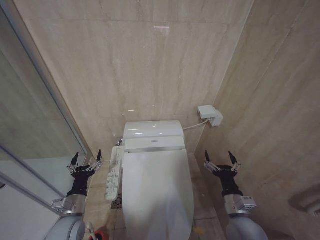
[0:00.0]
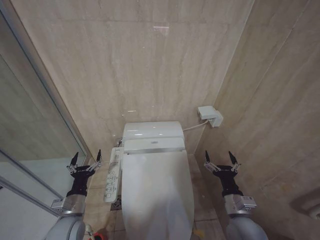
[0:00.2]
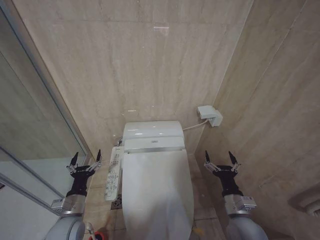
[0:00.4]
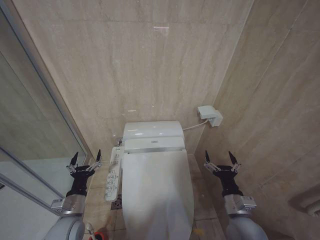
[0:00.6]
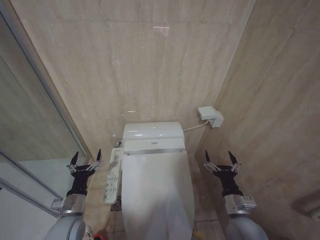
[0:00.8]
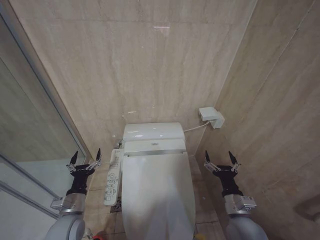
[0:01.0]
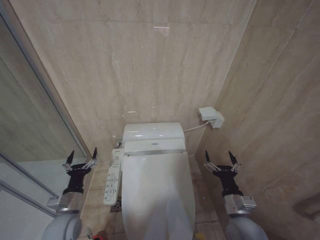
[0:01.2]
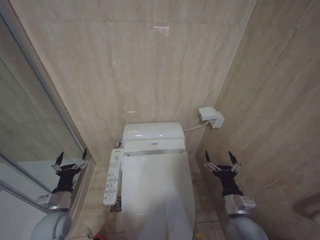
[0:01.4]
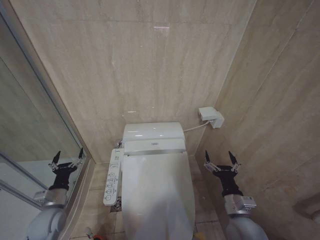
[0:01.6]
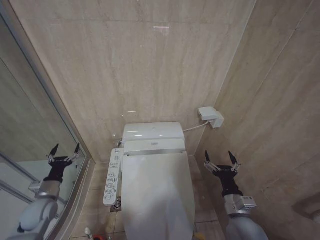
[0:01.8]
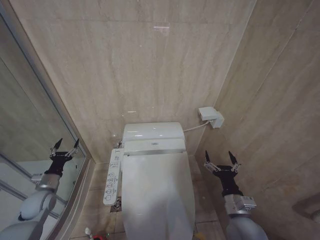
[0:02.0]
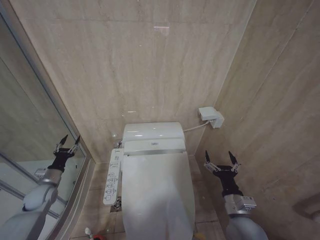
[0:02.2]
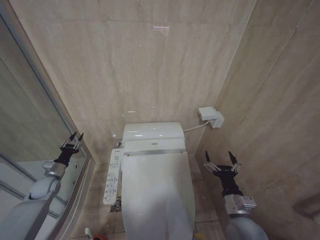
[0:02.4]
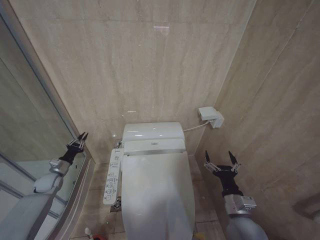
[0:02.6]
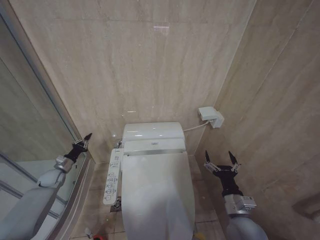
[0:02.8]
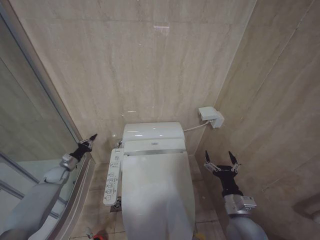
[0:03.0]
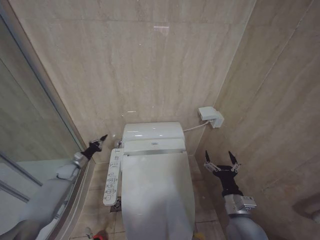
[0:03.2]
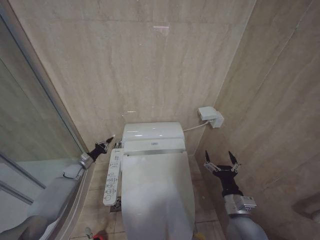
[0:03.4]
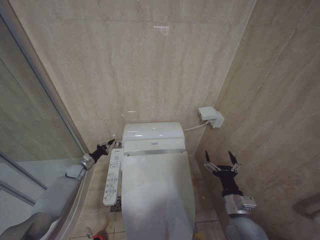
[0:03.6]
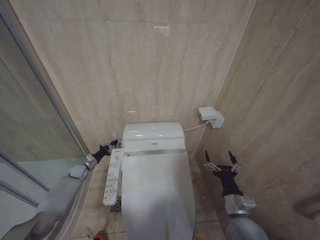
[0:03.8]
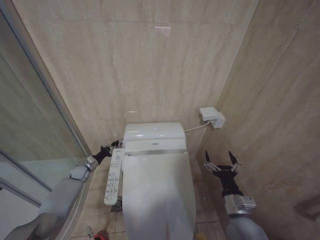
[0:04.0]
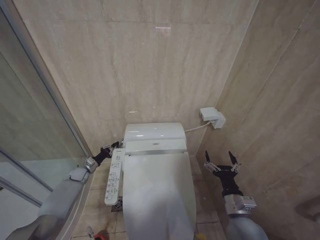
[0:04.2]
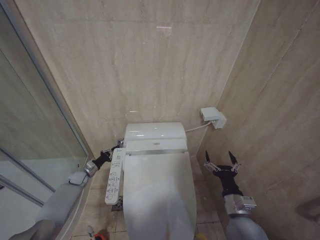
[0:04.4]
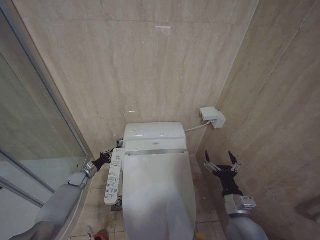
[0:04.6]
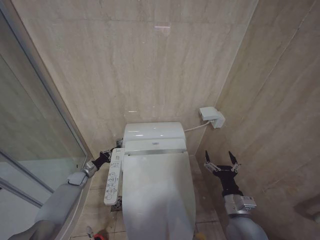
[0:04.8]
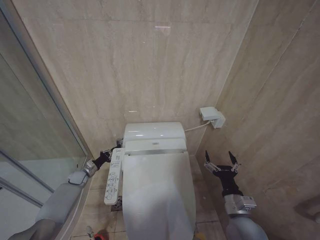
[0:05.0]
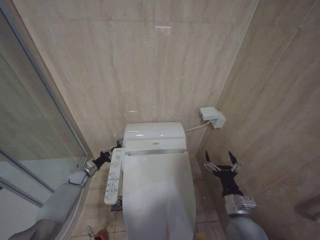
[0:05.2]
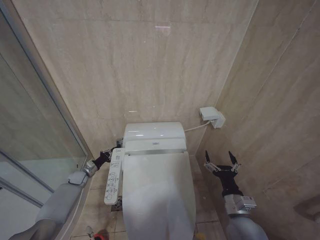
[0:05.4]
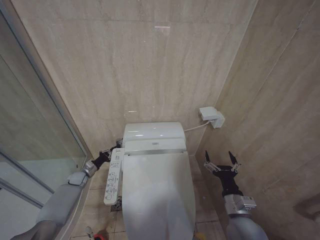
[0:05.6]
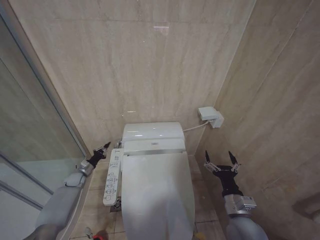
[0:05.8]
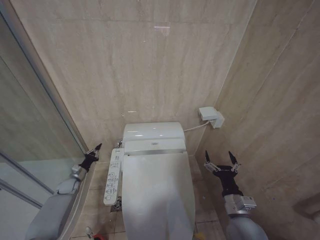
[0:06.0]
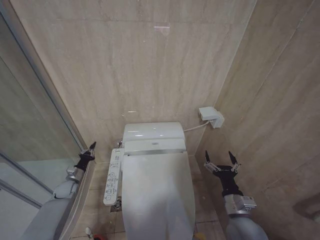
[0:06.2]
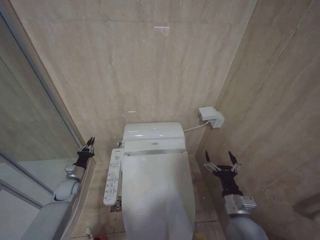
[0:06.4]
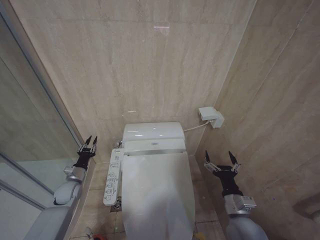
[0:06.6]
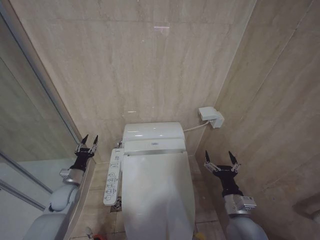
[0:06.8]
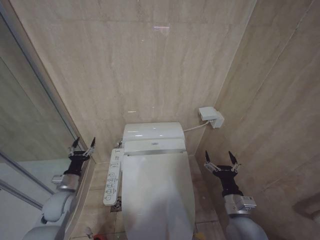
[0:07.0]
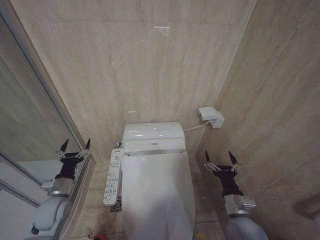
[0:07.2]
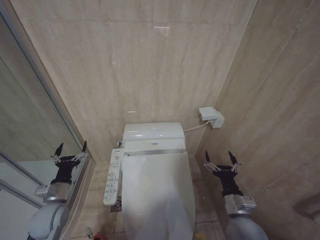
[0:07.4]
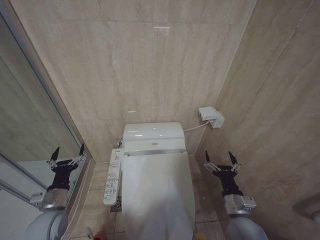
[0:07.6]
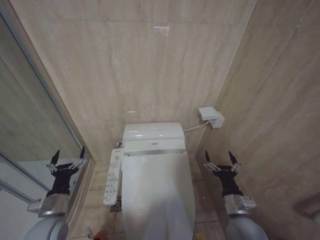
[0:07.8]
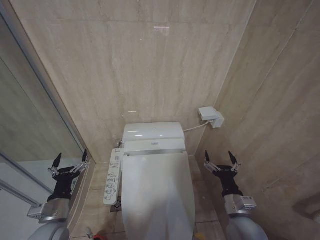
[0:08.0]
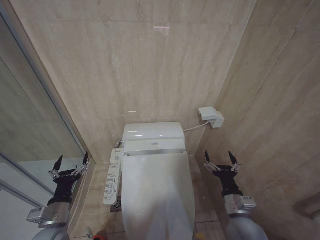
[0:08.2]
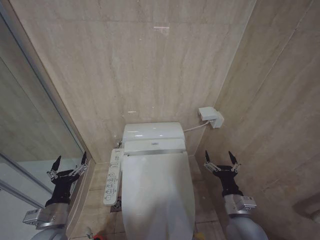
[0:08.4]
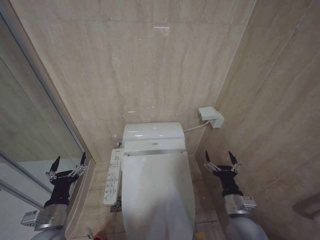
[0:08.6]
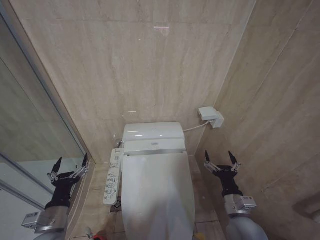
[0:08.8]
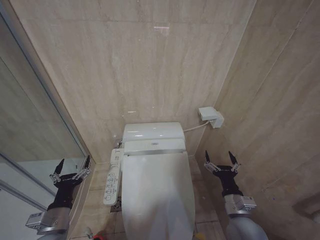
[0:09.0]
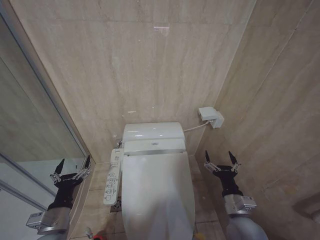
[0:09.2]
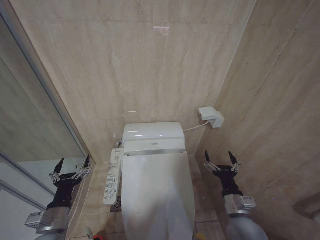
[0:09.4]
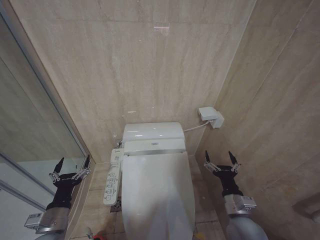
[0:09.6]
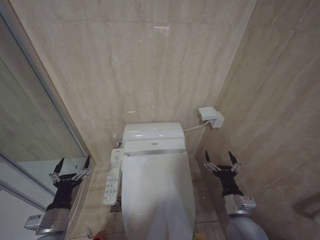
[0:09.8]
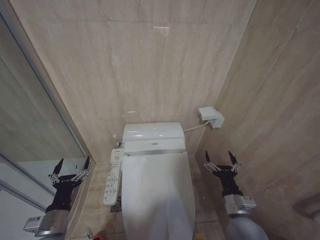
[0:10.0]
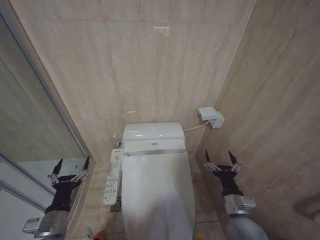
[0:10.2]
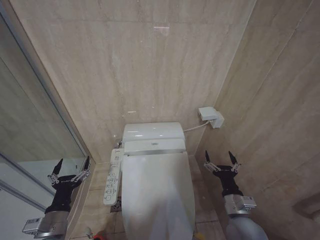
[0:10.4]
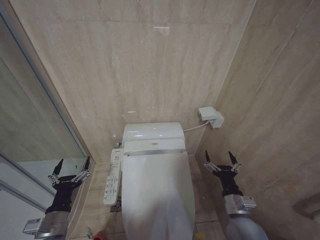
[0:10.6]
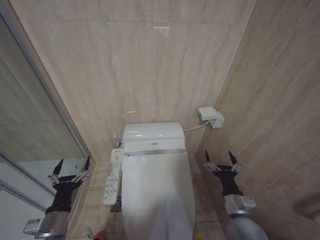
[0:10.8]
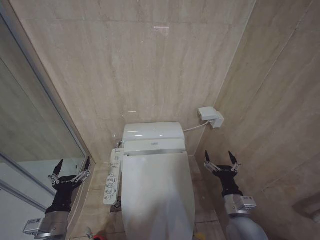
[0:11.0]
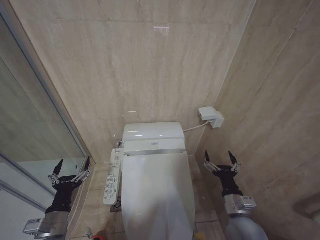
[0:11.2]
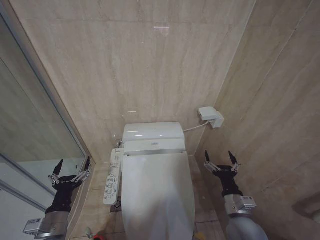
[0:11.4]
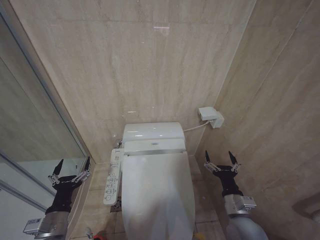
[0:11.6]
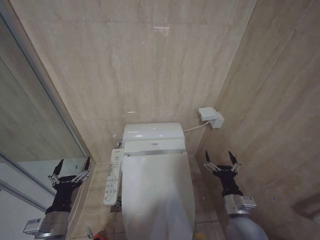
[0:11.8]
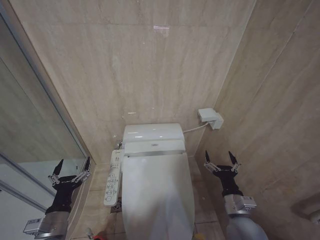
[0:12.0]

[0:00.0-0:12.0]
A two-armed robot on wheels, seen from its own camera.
Task of the whole recording: Open the toilet lid, clean the toilet bowl with a toilet brush, close the toilet lid, and flush.
0:00.0 to 0:01.6: The left gripper goes some 10 cm to the left.
0:01.6 to 0:03.0: The left gripper travels forward and to the left by some 25 cm, and closes up.
0:03.0 to 0:04.4: The left gripper goes approximately 10 cm to the right and downward.
0:04.4 to 0:06.0: There are only small adjustments of the grippers.
0:06.0 to 0:07.6: The left gripper goes approximately 25 cm backward and upward, and opens its fingers.
0:07.6 to 0:09.0: The left gripper heads backward, covering about 5 cm.
0:09.0 to 0:12.0: Both grippers stay about where they are.

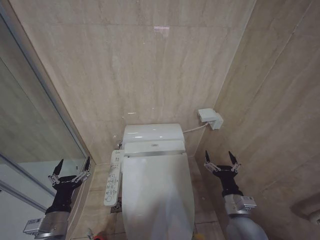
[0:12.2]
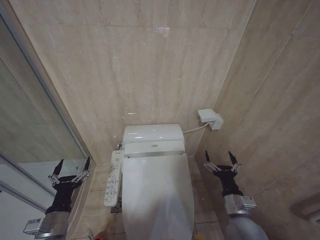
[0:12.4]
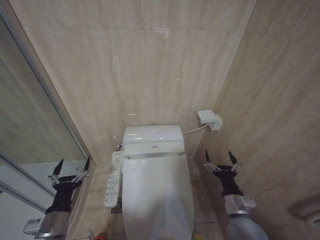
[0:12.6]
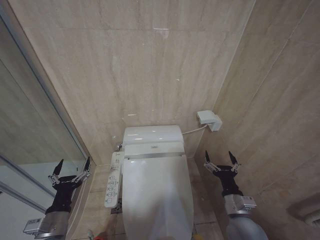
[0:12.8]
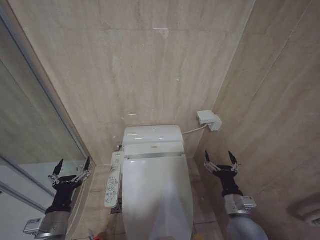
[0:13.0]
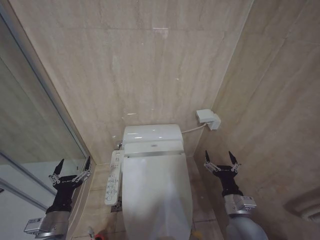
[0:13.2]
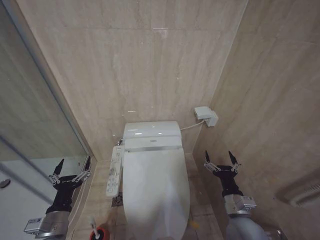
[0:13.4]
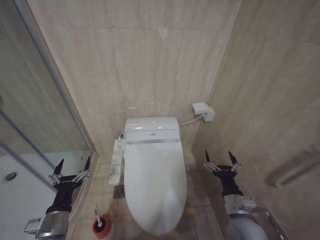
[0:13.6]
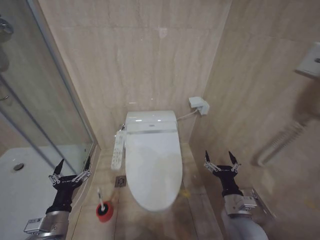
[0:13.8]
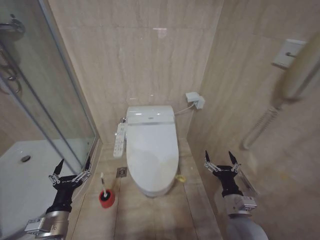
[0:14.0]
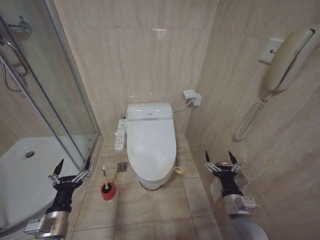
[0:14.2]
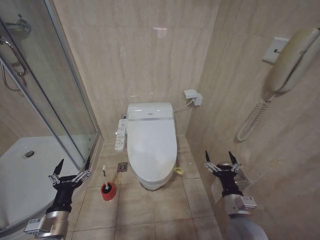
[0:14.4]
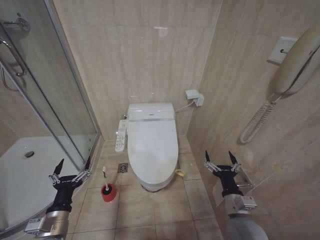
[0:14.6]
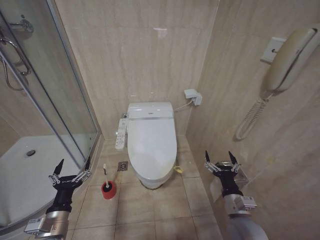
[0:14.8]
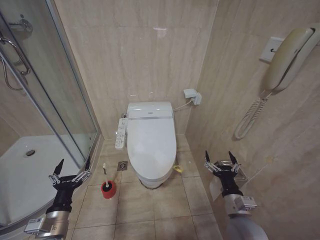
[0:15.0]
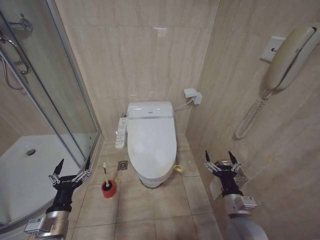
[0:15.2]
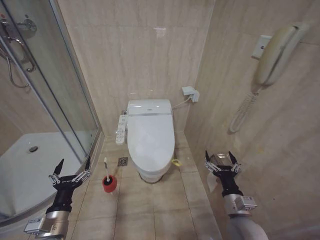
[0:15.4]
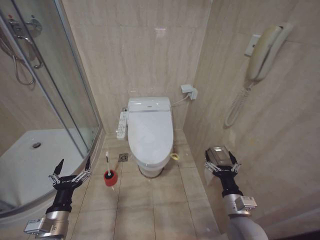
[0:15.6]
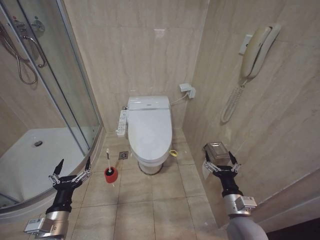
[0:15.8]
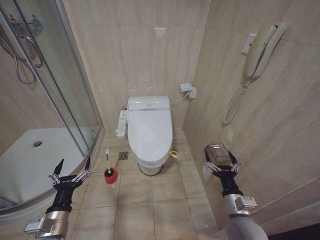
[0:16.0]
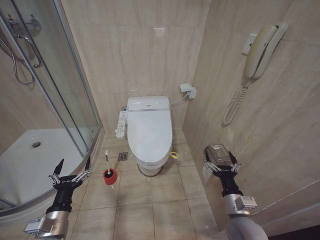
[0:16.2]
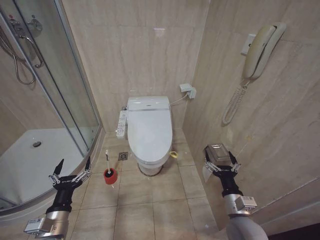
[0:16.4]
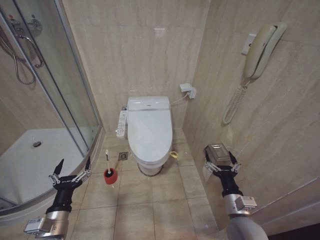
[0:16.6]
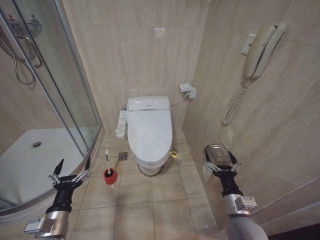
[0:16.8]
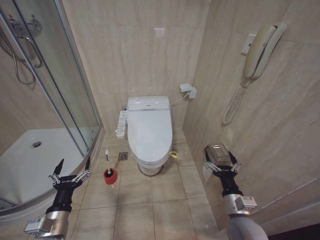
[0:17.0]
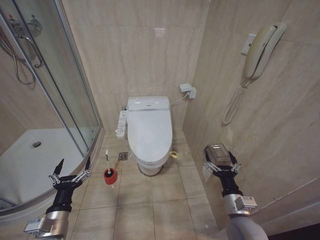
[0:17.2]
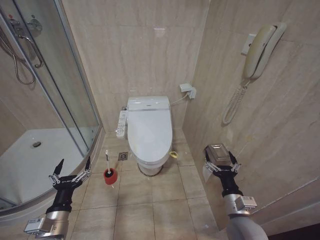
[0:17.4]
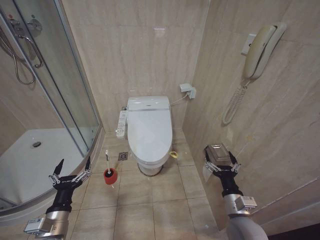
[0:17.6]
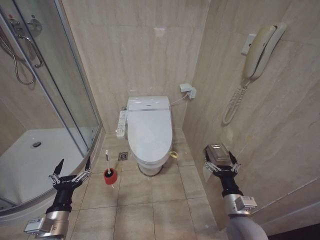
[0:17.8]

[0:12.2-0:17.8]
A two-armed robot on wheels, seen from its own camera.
Task of the whole recording: Open the toilet lid, clean the toilet bowl with a toilet brush, close the toilet lid, and flush.
0:12.2 to 0:13.6: Both grippers stay put.
0:15.0 to 0:17.8: Both grippers stay put.

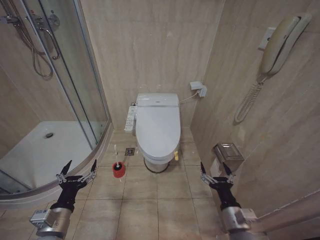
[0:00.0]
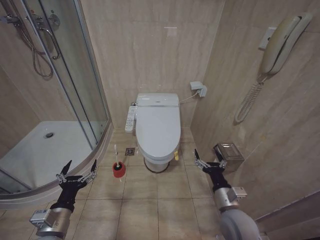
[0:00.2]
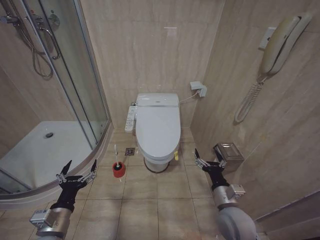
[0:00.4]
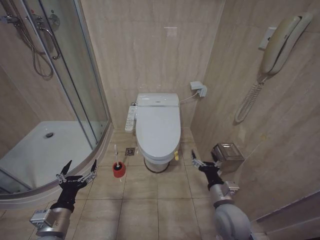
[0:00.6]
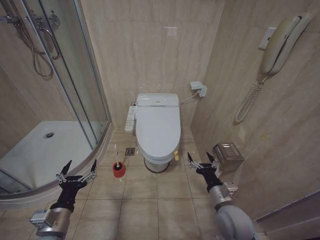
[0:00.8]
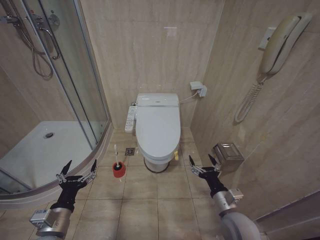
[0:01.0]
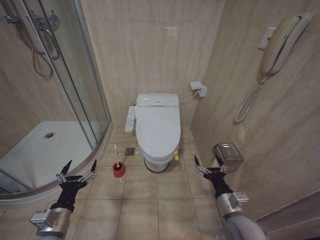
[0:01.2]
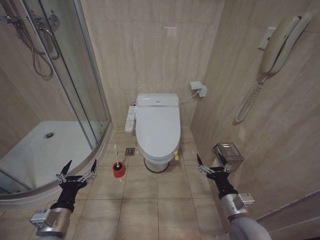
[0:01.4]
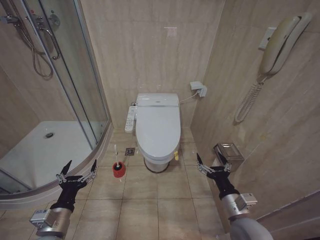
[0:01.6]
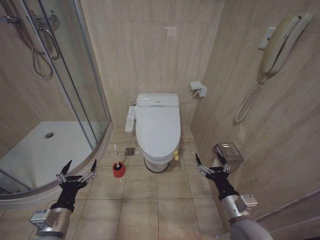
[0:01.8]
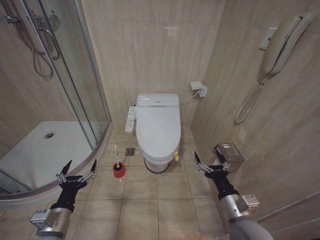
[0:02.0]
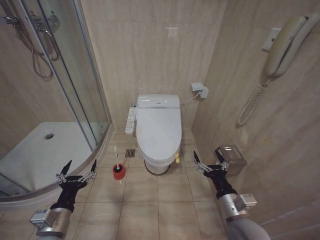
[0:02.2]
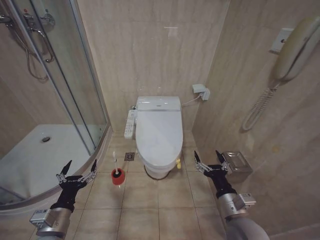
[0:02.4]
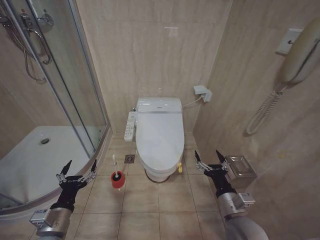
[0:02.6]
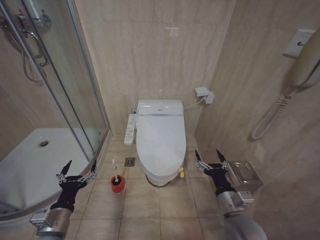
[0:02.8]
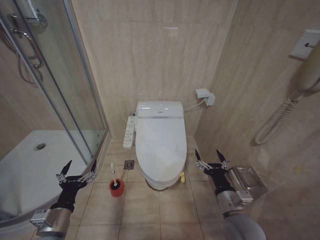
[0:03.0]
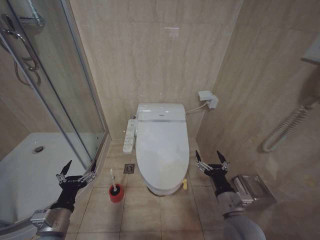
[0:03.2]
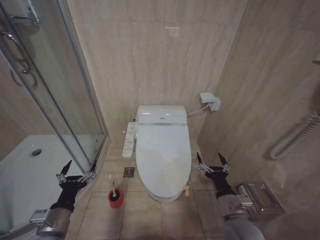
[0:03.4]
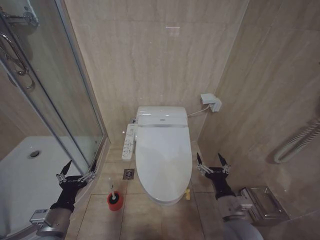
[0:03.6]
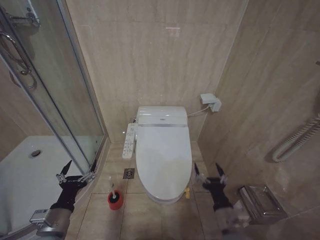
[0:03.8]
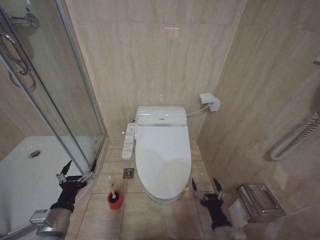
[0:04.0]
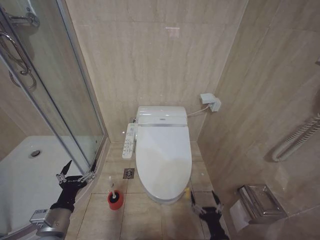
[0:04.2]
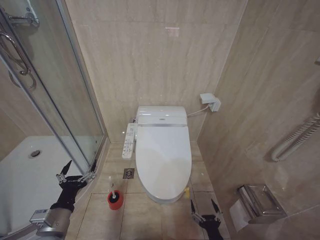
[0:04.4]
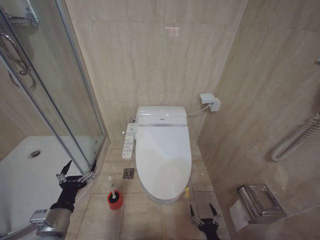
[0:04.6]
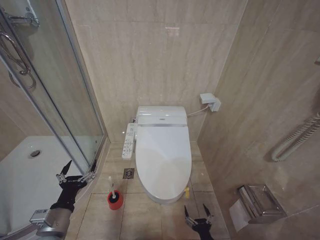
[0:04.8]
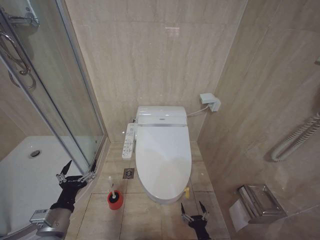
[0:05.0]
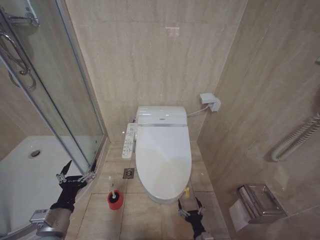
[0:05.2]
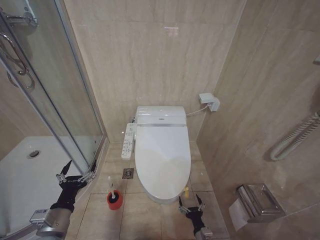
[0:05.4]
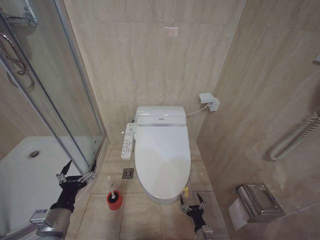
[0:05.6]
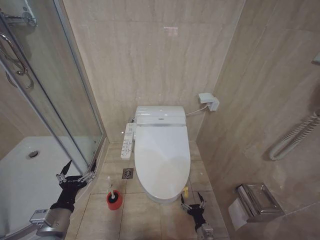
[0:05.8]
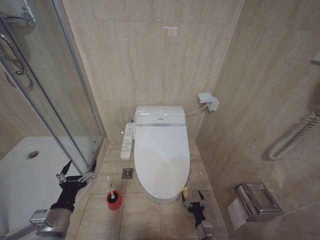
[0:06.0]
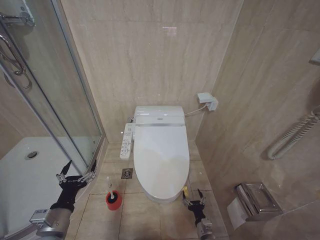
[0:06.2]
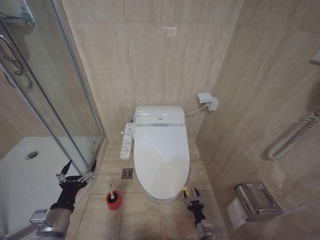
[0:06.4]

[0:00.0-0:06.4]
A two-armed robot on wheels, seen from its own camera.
Task of the whole recording: Open the toilet lid, clean the toilet bowl with a toilet brush, close the toilet lid, and flush.
0:03.2 to 0:04.8: The right gripper goes about 25 cm downward.
0:04.8 to 0:06.4: The right gripper shifts roughly 10 cm forward.
